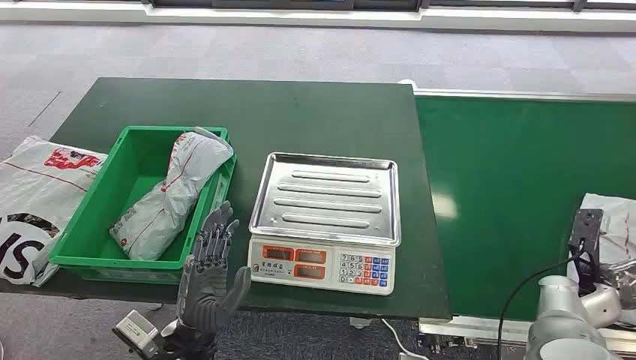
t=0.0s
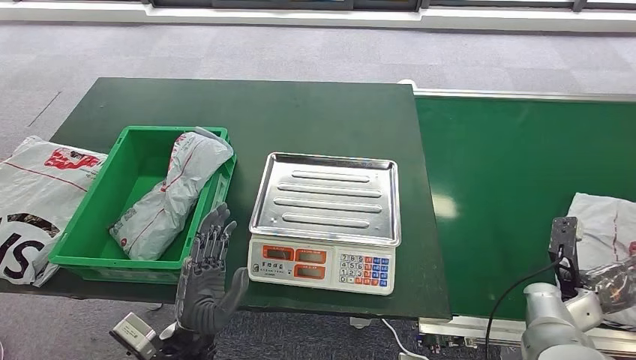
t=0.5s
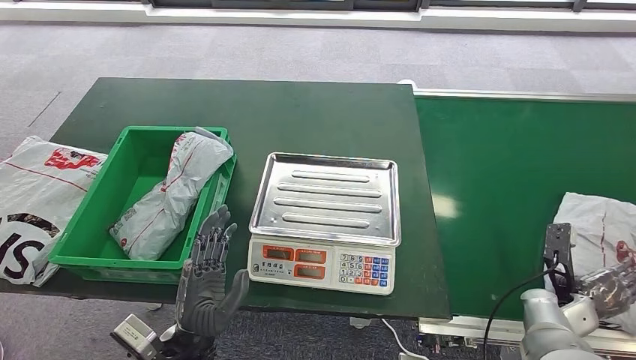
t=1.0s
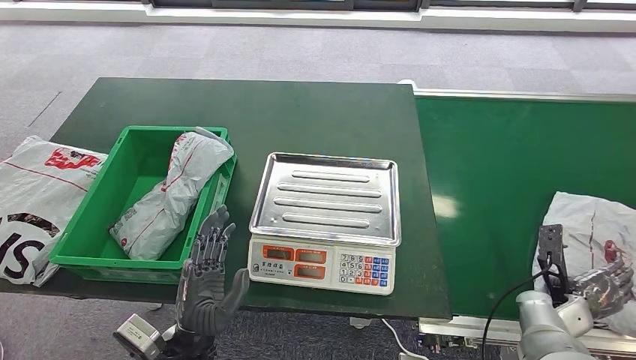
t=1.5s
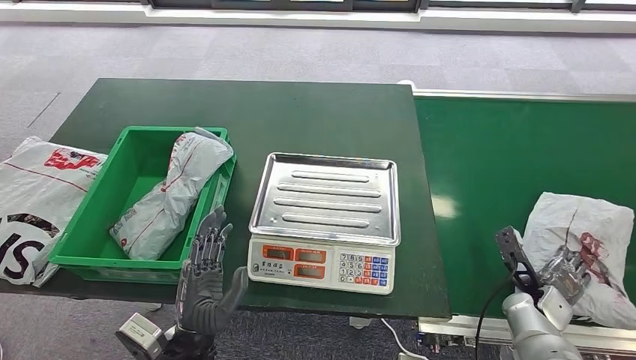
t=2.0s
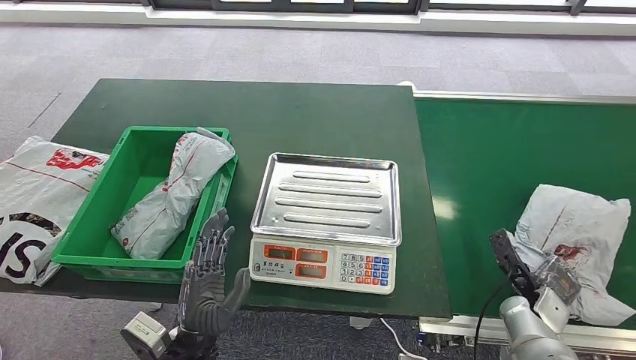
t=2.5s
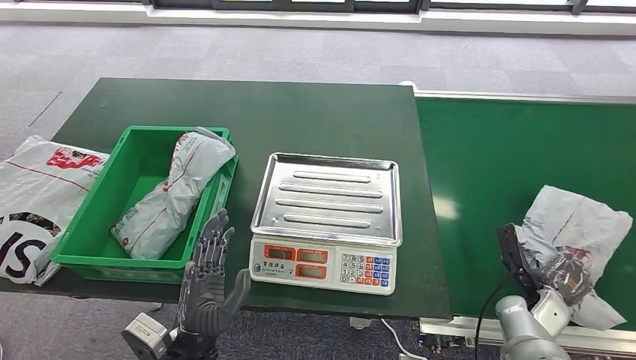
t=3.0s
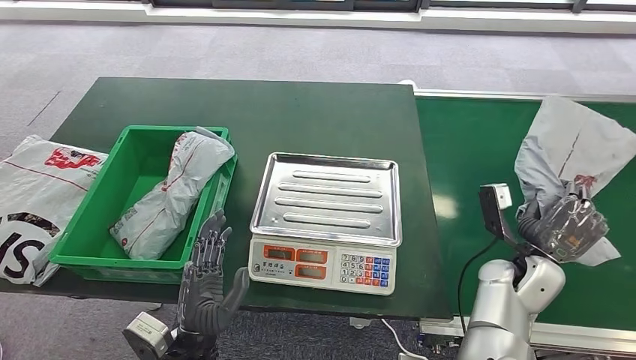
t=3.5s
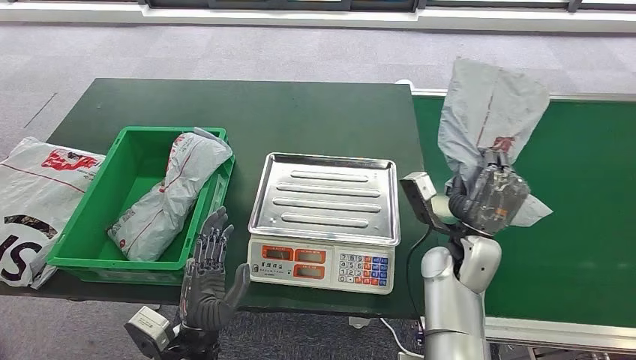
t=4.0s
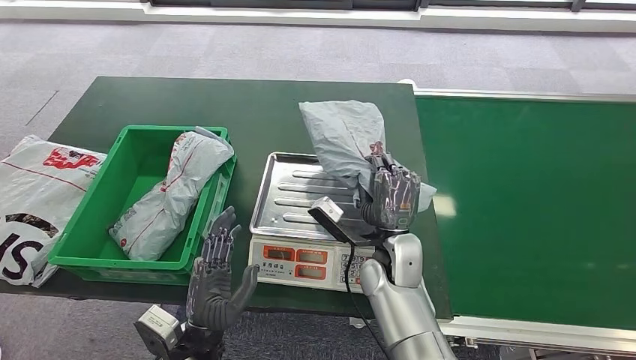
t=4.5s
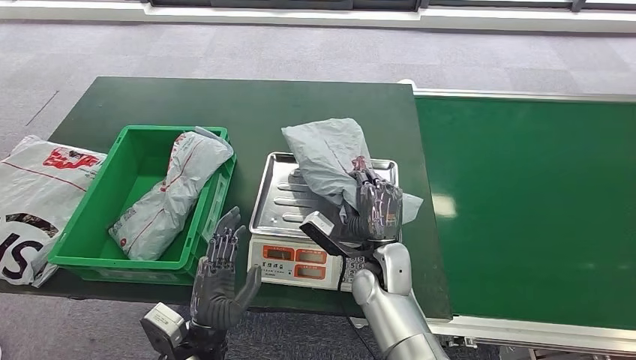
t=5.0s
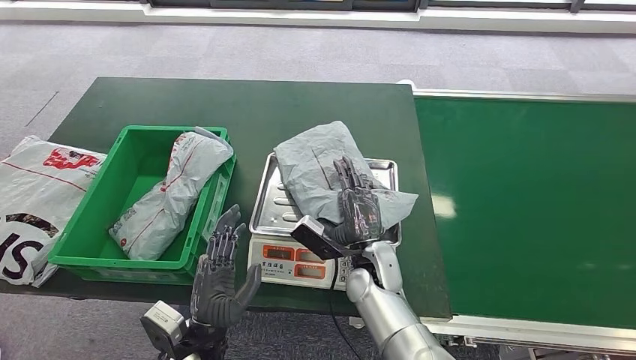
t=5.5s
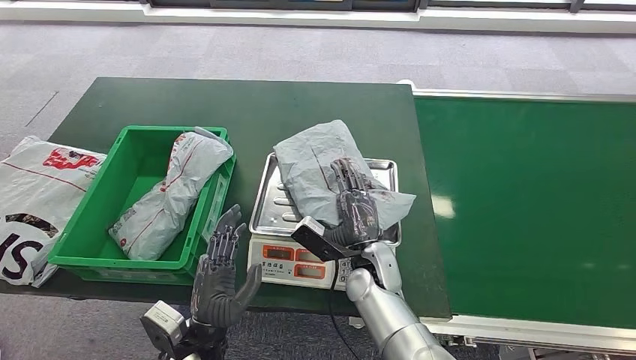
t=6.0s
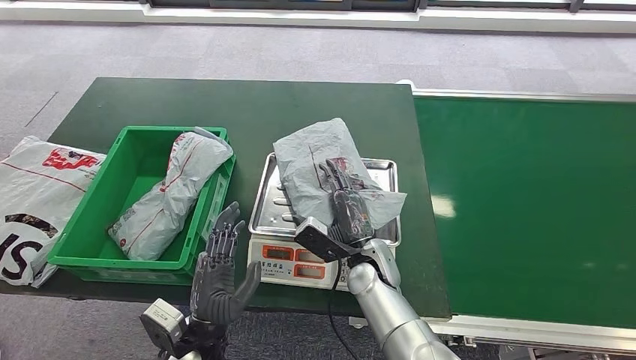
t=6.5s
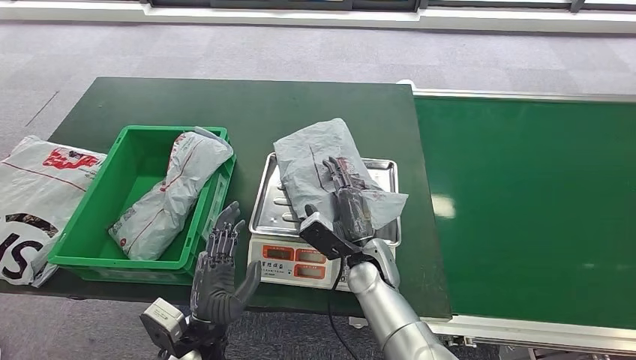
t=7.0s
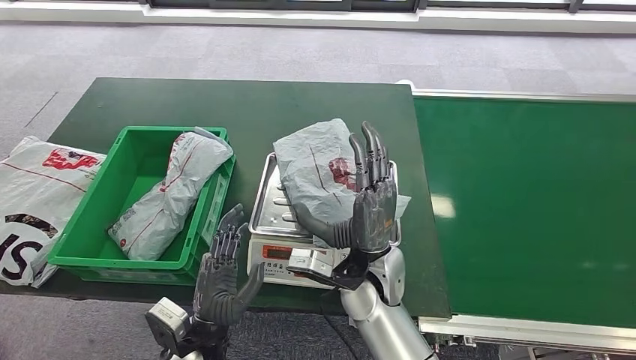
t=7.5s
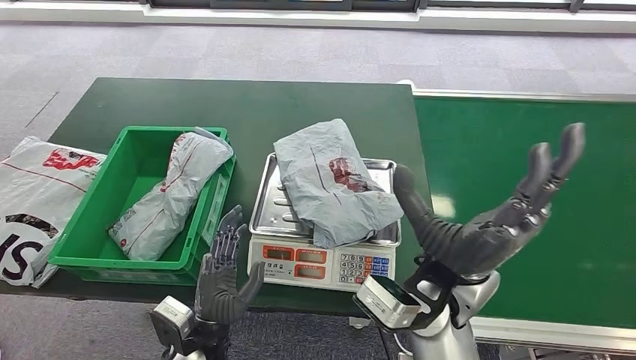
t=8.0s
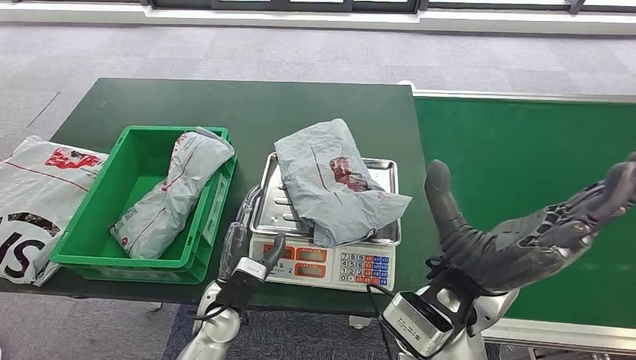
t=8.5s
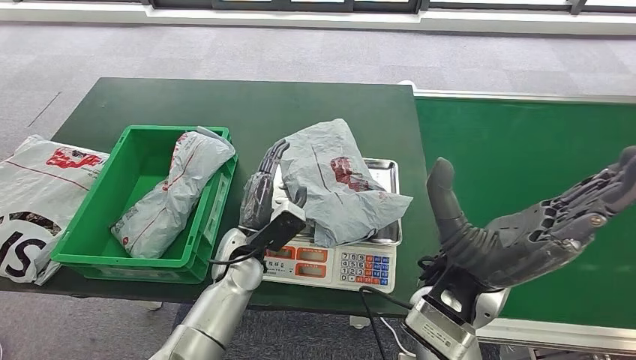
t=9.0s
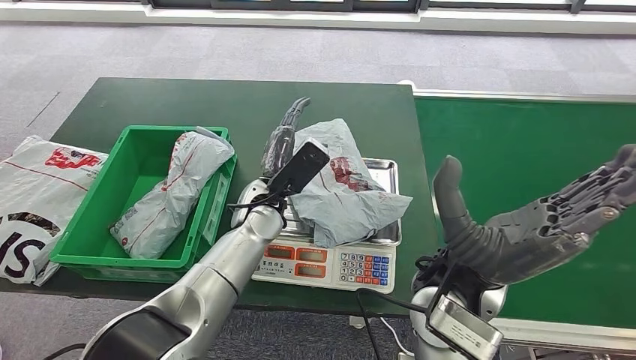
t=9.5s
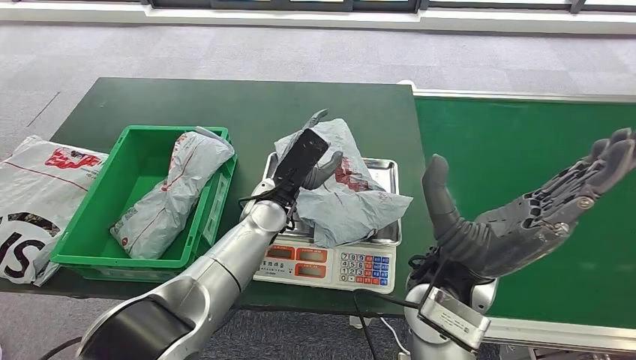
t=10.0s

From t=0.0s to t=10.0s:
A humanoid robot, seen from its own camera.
Step, from t=0.0s to t=3.5s: Pick up the package from the conveyor belt.
Step, from t=4.0s to t=6.0s: Place the package onto the inbound machine.
From t=6.0s to t=8.0s: The right hand goes roughly 15 cm upward.
From t=8.0s to t=10.0s: The left hand moves forward, upward and to the right, about 25 cm.

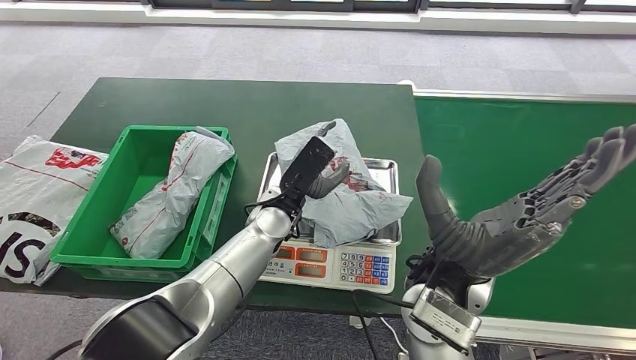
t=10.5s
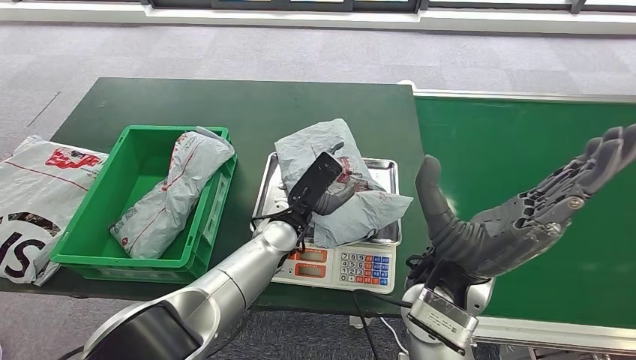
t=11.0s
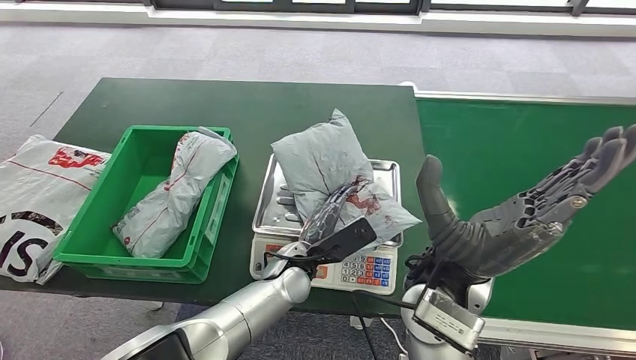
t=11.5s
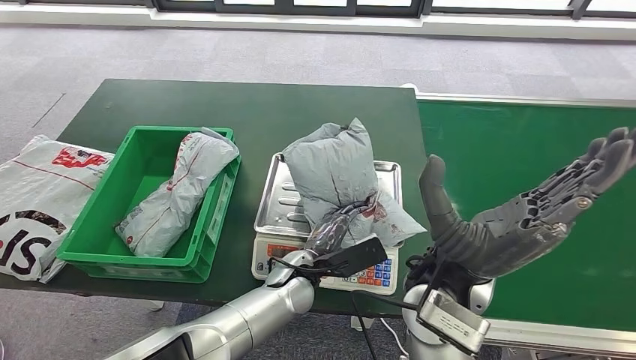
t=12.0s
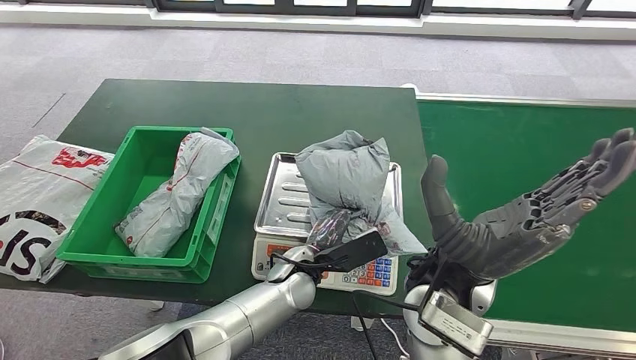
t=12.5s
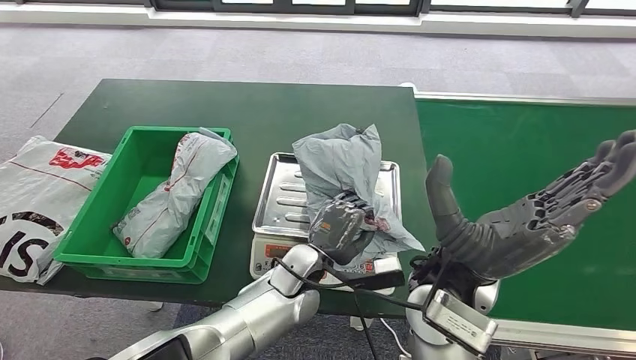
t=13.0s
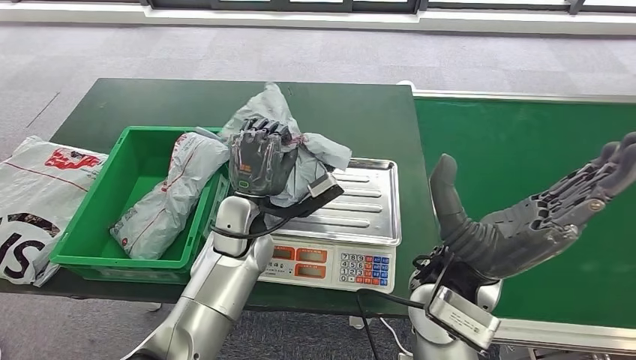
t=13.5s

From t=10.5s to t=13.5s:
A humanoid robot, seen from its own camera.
Step, from t=10.5s to t=13.5s: Pick up the package from the inbound machine.

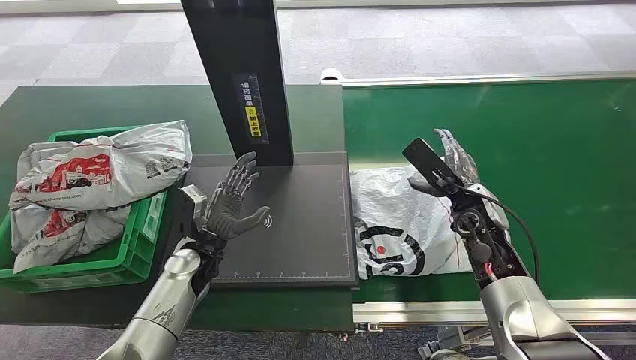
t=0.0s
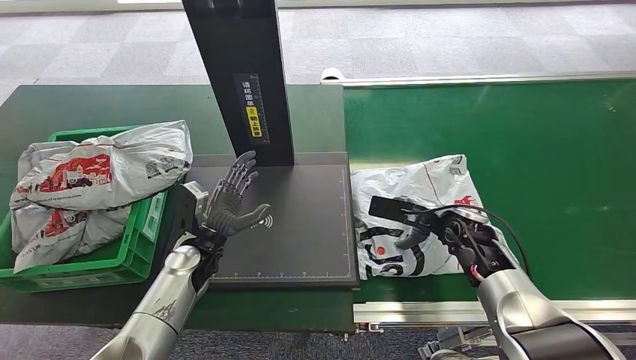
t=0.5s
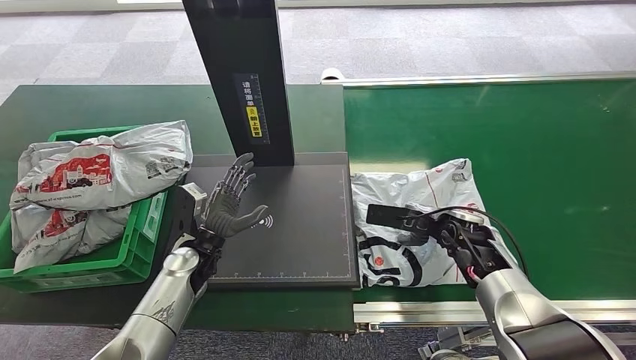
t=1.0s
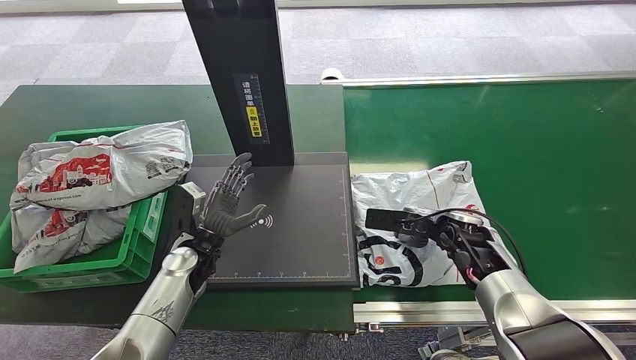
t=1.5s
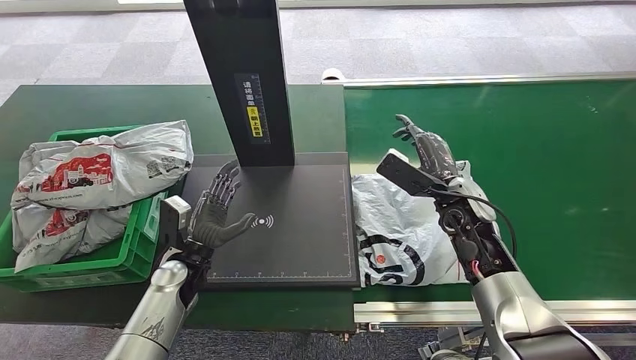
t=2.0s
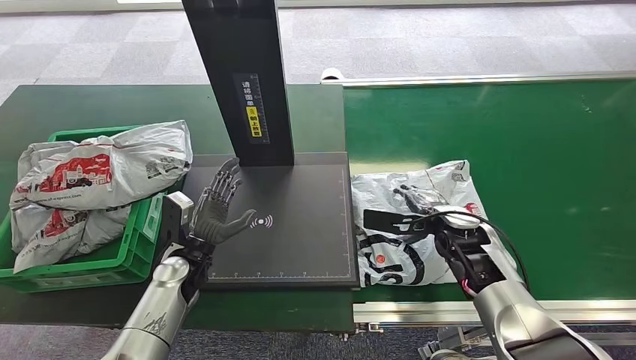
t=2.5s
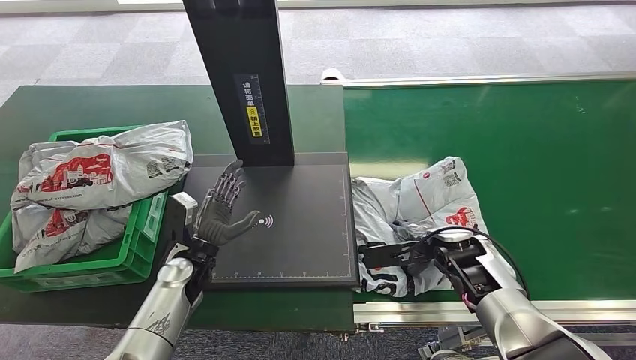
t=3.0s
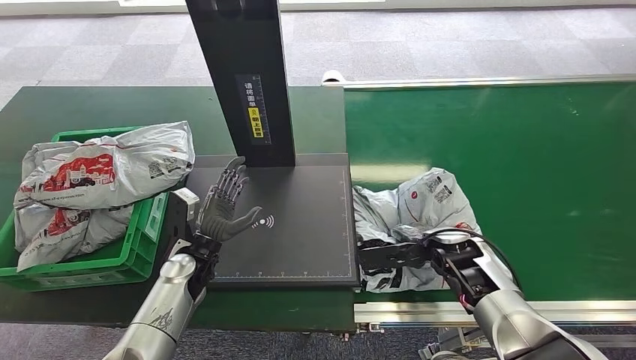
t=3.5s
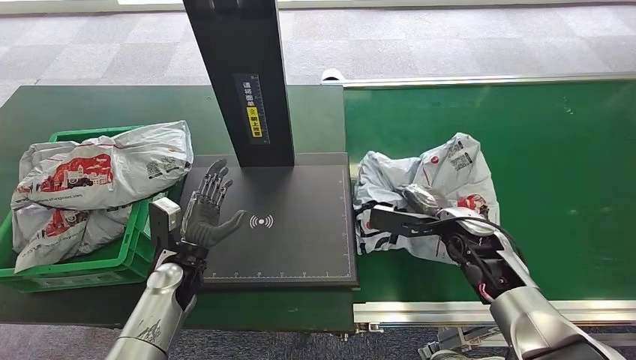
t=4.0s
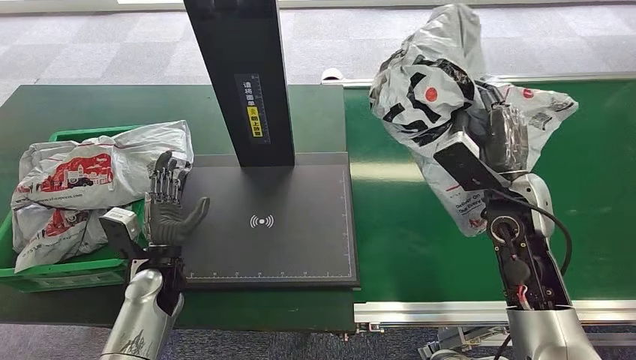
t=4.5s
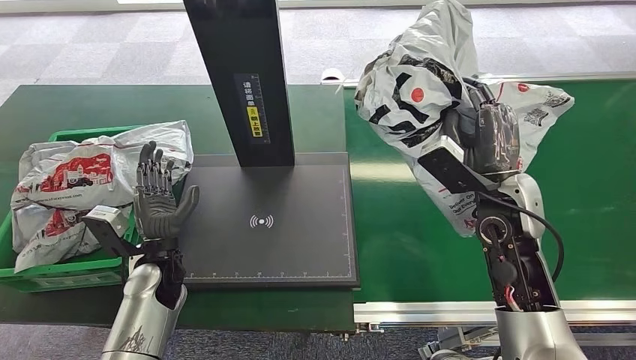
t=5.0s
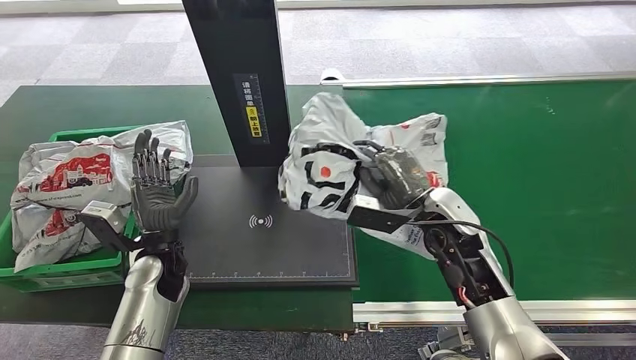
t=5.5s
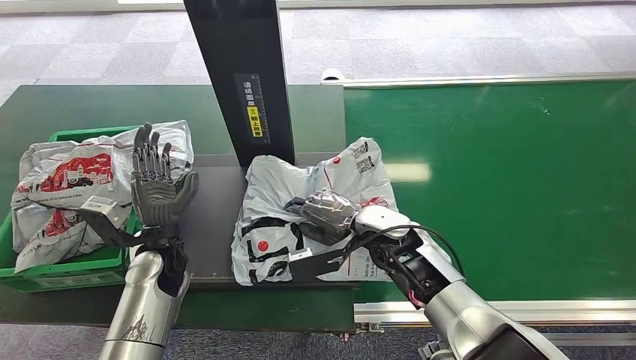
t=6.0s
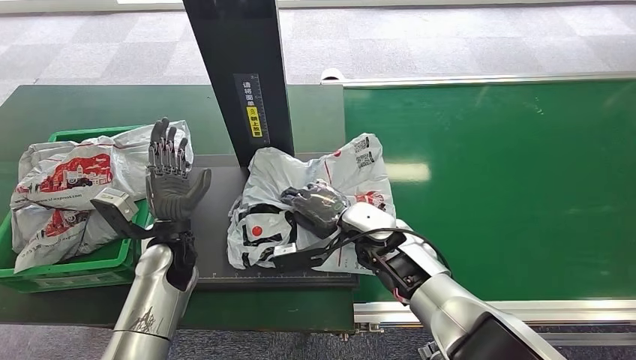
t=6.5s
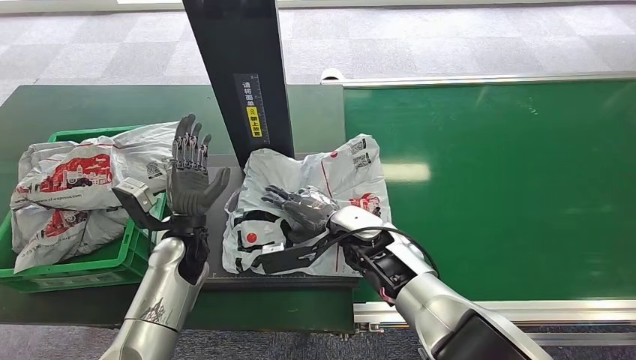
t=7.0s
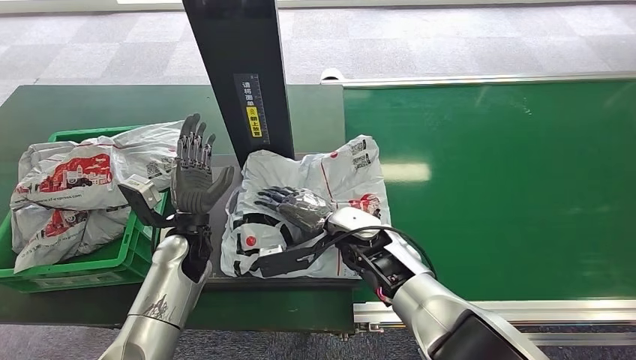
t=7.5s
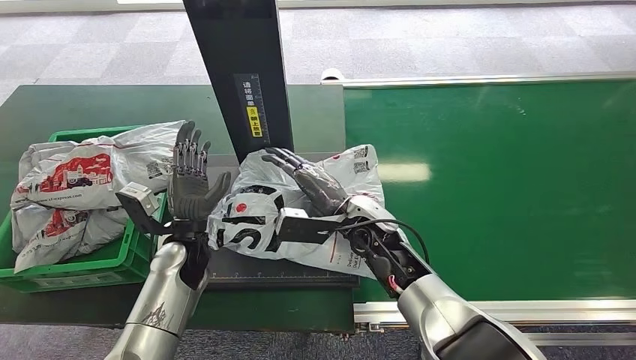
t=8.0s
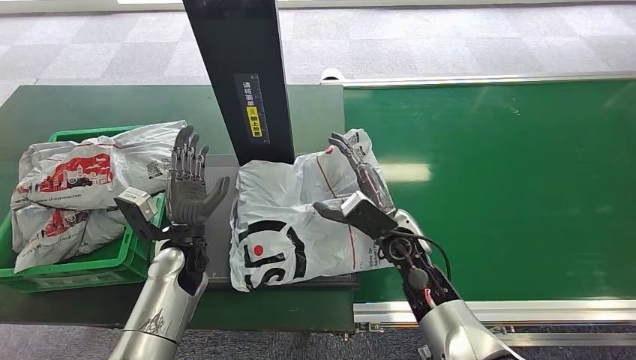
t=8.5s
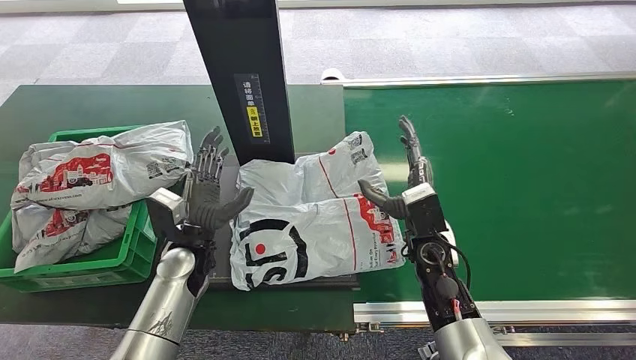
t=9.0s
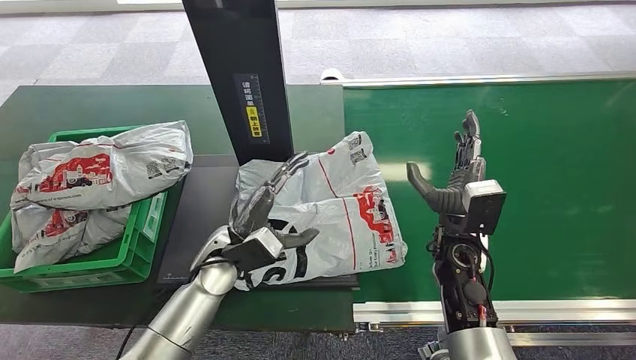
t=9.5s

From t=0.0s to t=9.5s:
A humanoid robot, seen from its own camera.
Step, from t=0.0s to t=4.5s: Pick up the package from the conveyor belt.
Step, from t=5.0s to t=8.0s: Place the package onto the inbound machine.
From t=7.5s to t=9.5s: The left hand goes roughly 5 cm to the right; the right hand travels to the right by about 10 cm.
